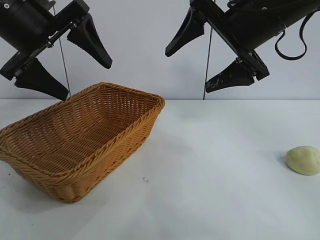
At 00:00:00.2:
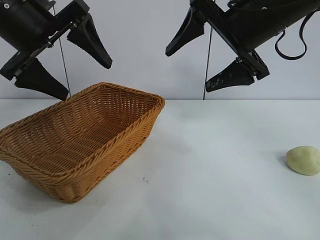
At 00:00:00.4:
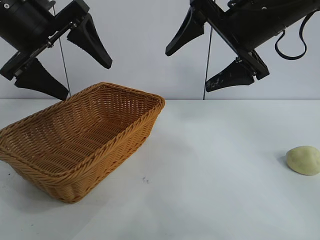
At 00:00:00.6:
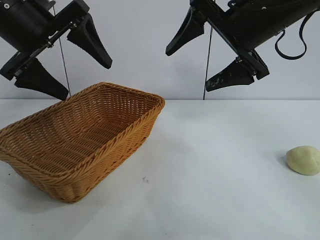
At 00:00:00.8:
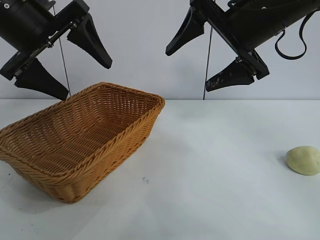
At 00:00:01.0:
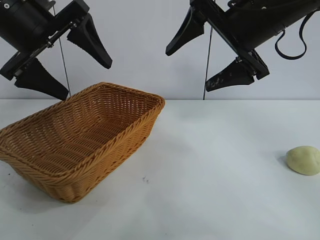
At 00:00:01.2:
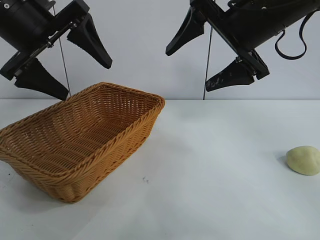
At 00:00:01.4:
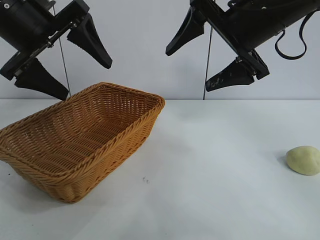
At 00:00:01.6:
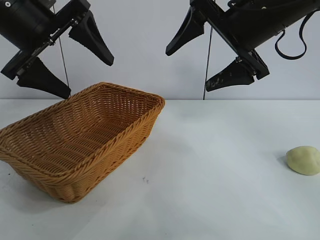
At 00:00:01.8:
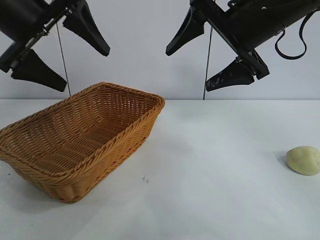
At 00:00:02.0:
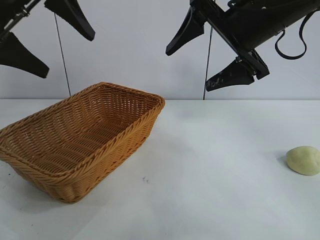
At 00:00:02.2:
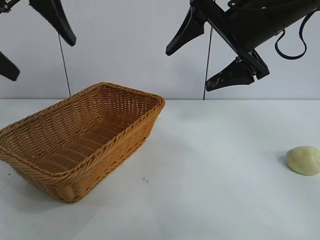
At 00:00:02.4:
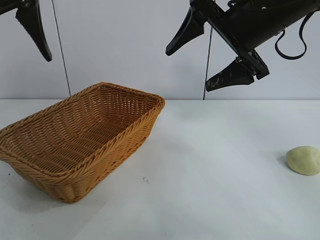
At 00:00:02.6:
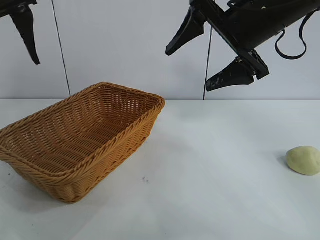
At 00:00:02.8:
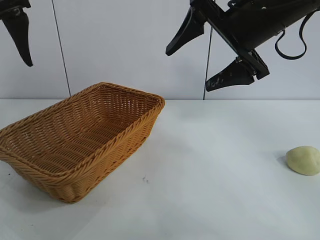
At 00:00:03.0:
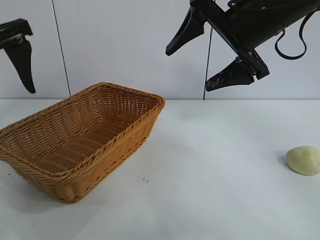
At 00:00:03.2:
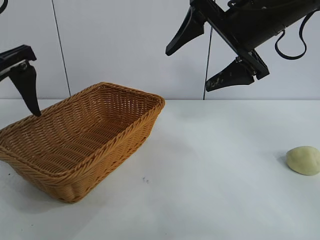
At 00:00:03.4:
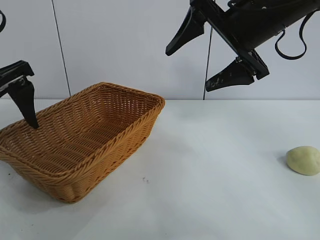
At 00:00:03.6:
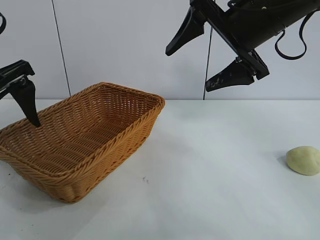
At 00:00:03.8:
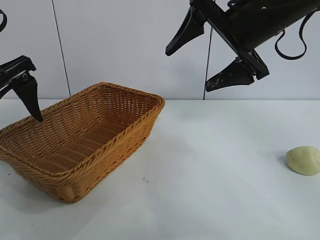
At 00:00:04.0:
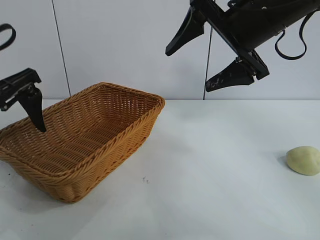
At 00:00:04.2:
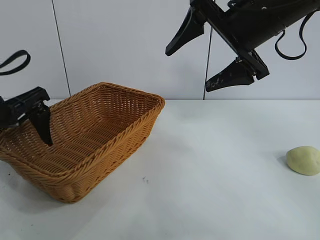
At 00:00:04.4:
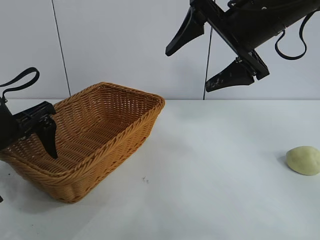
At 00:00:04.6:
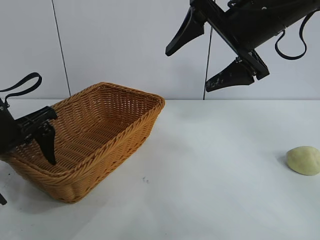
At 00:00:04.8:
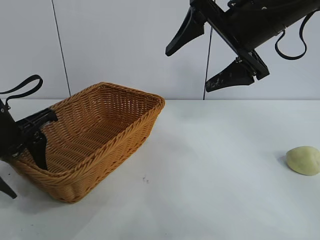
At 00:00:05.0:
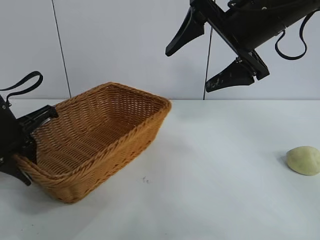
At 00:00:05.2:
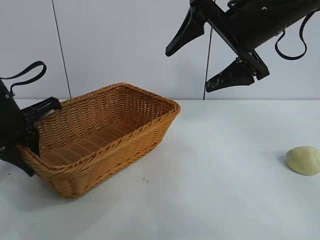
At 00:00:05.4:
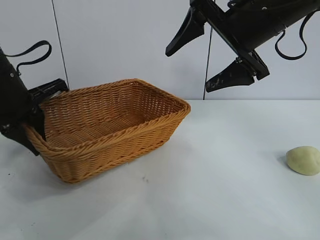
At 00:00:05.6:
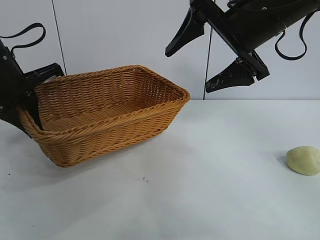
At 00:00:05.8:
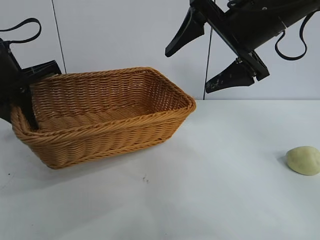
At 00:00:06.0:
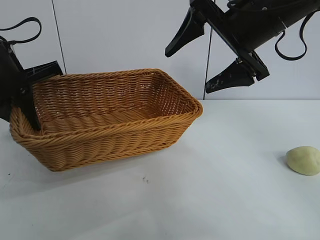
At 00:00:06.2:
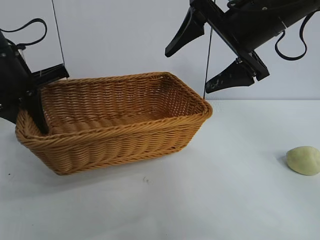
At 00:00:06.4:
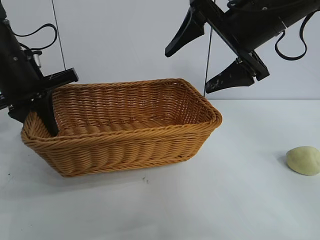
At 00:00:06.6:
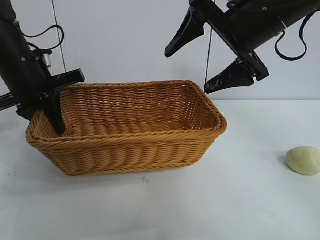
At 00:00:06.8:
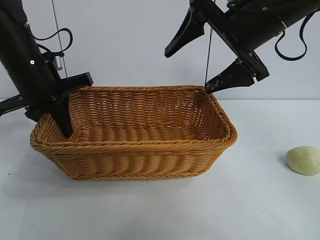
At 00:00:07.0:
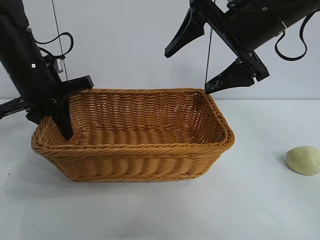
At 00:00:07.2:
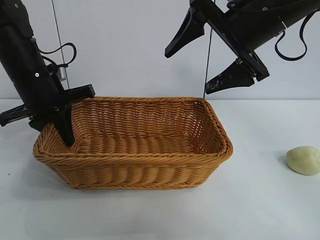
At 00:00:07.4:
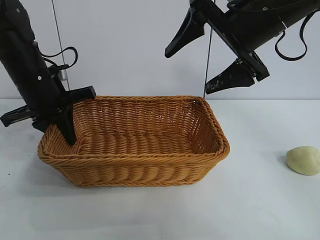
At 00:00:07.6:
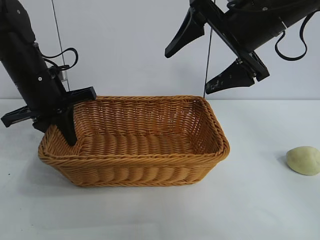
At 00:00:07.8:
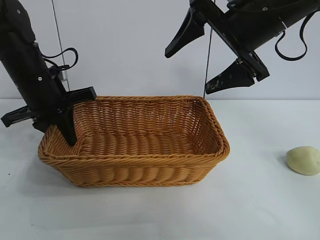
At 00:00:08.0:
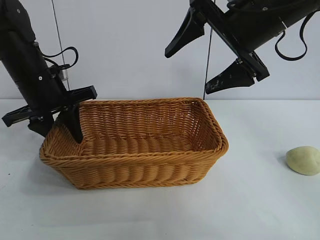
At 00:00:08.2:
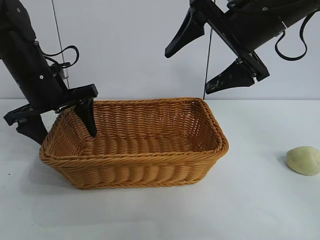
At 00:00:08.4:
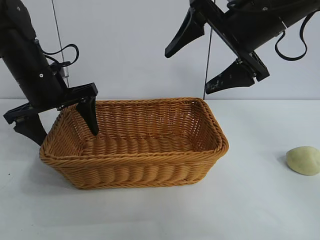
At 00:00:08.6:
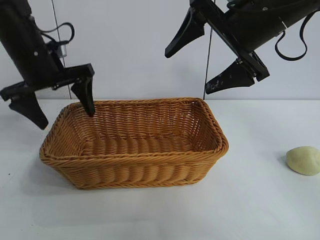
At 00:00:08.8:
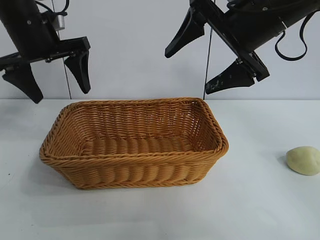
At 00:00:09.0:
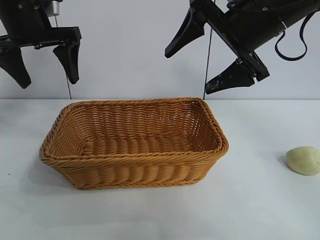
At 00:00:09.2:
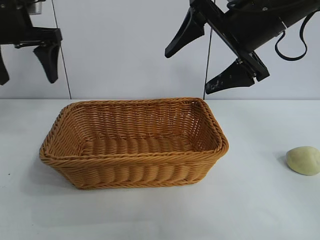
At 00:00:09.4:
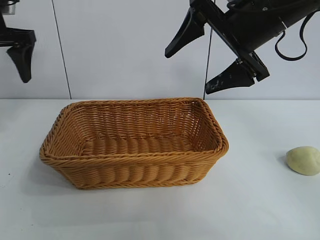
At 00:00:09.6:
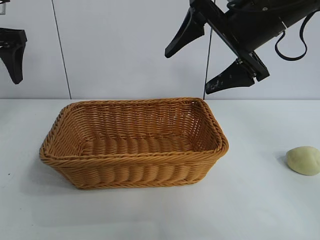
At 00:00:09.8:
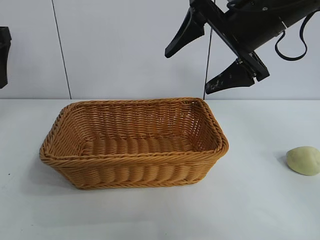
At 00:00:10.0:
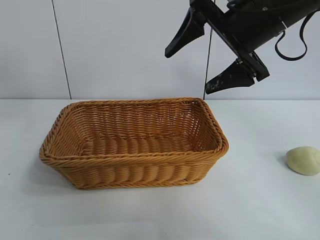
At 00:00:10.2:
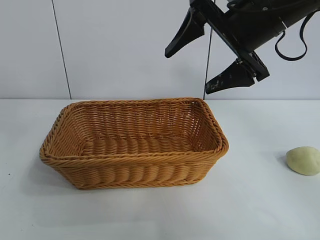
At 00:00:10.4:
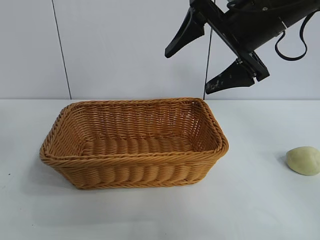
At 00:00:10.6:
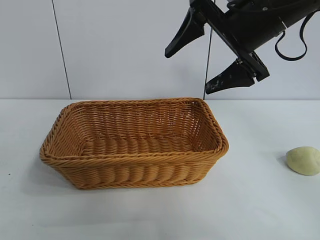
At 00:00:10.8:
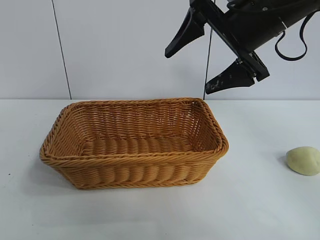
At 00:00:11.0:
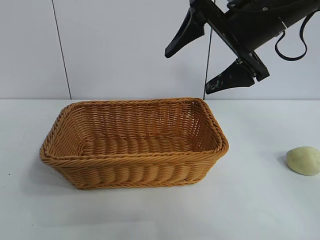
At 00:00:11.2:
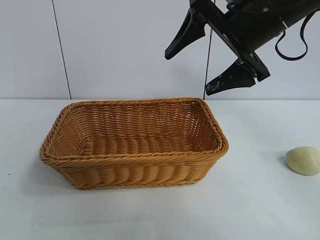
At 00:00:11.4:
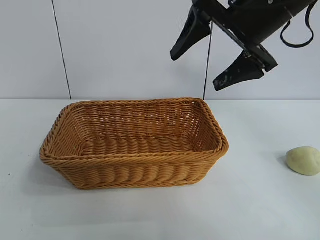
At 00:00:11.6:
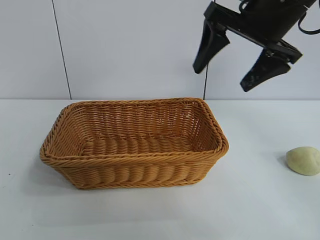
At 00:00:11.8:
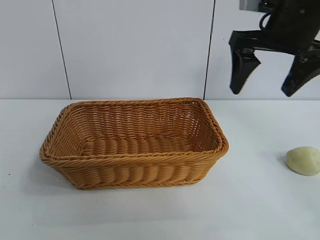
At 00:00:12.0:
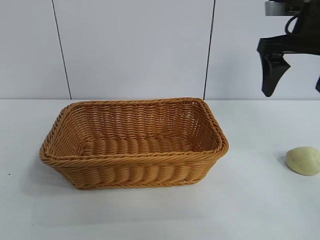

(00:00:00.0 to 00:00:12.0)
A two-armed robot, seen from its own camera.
Task of the whole recording: pick up the egg yolk pastry and put it into the basket.
Step, 00:00:00.0 - 00:00:05.0: Grasp the basket with left gripper.
Step, 00:00:05.2 - 00:00:08.4: Place the basket in the center of view with left gripper.

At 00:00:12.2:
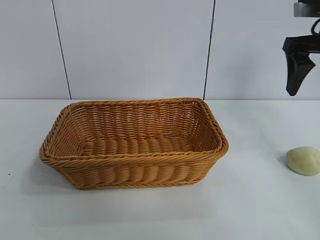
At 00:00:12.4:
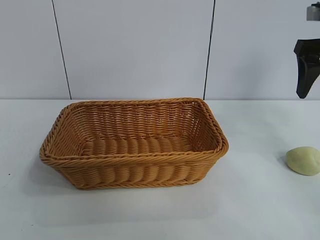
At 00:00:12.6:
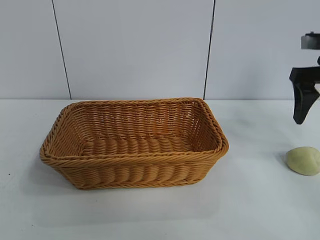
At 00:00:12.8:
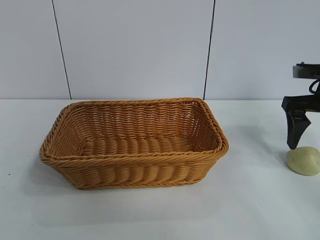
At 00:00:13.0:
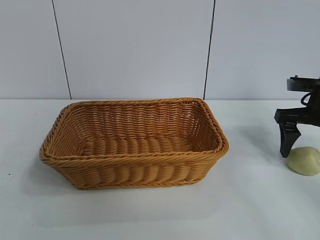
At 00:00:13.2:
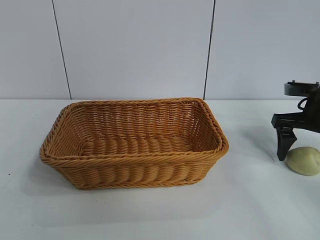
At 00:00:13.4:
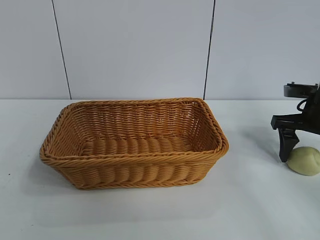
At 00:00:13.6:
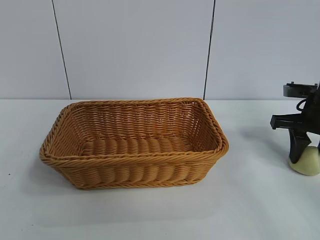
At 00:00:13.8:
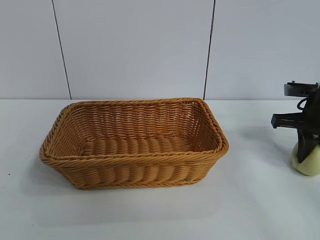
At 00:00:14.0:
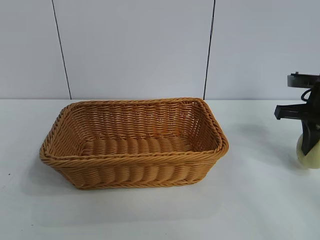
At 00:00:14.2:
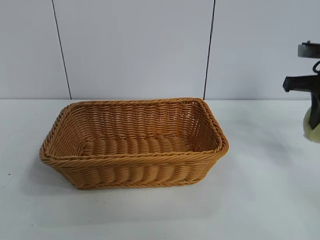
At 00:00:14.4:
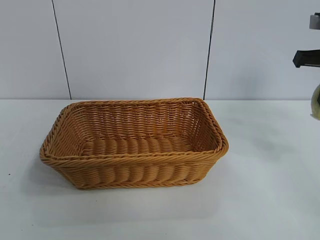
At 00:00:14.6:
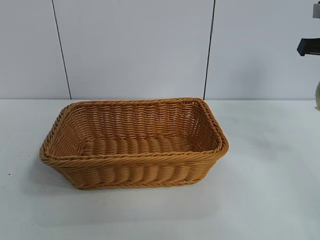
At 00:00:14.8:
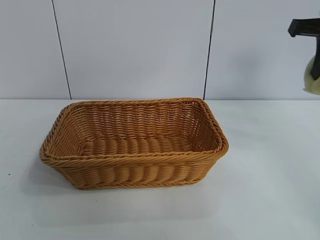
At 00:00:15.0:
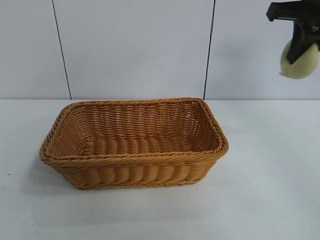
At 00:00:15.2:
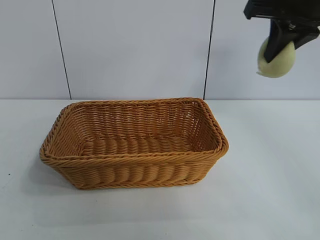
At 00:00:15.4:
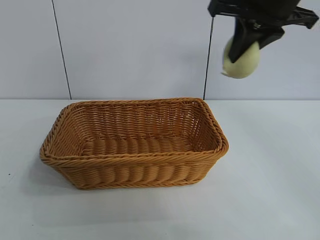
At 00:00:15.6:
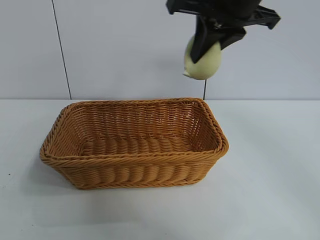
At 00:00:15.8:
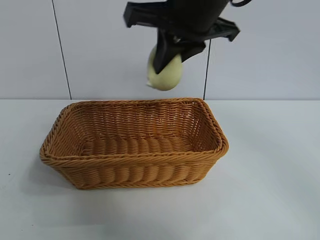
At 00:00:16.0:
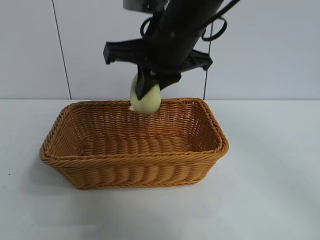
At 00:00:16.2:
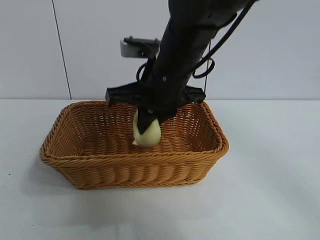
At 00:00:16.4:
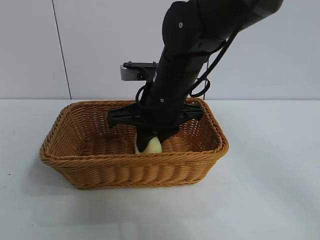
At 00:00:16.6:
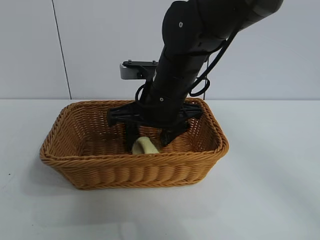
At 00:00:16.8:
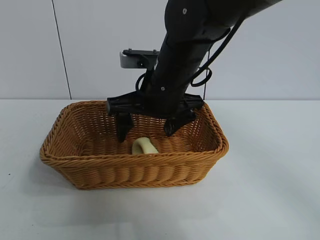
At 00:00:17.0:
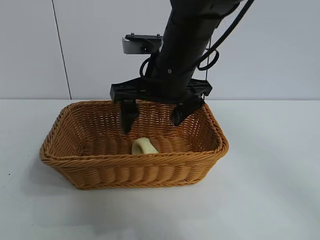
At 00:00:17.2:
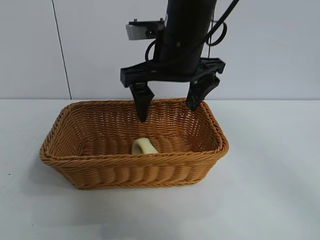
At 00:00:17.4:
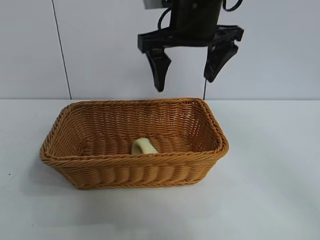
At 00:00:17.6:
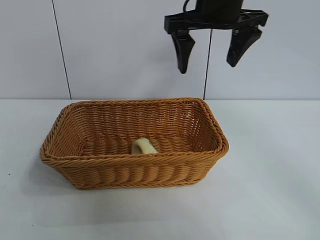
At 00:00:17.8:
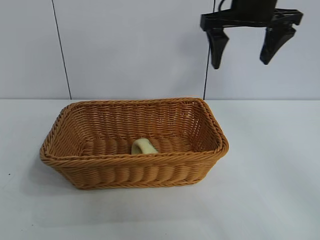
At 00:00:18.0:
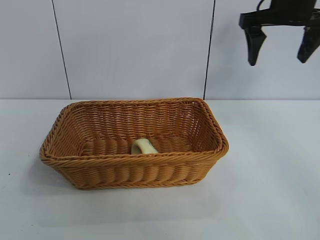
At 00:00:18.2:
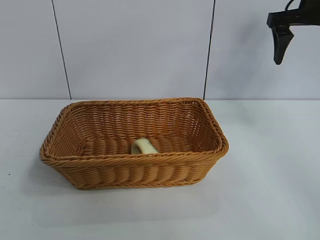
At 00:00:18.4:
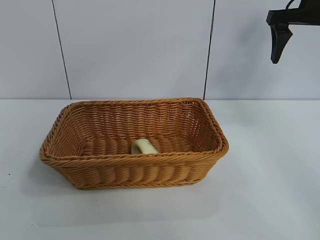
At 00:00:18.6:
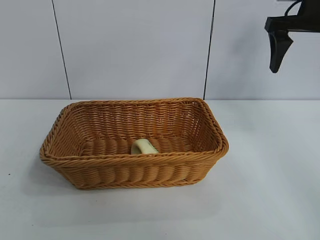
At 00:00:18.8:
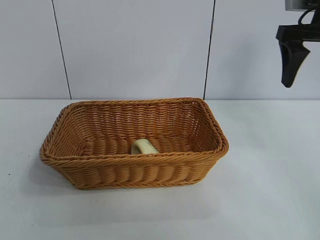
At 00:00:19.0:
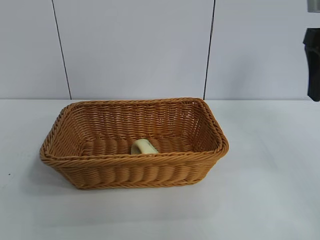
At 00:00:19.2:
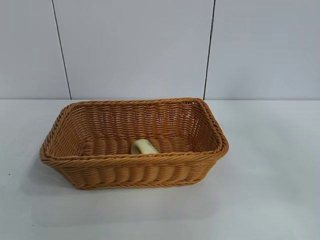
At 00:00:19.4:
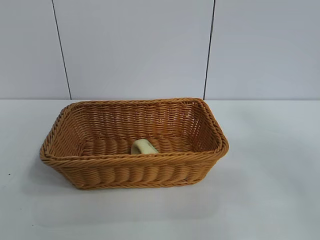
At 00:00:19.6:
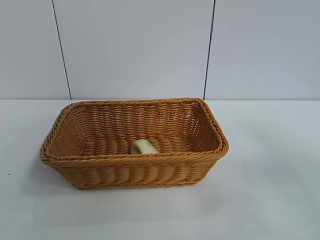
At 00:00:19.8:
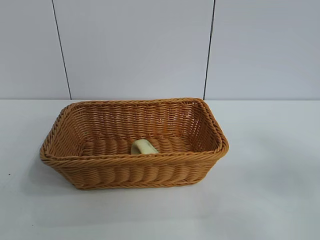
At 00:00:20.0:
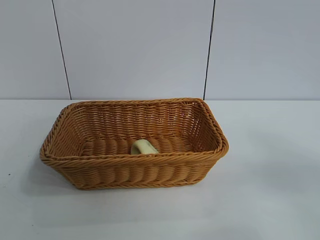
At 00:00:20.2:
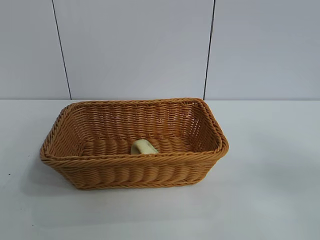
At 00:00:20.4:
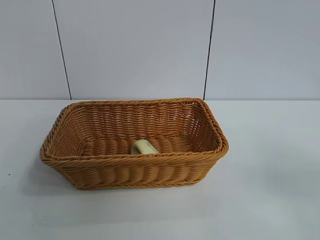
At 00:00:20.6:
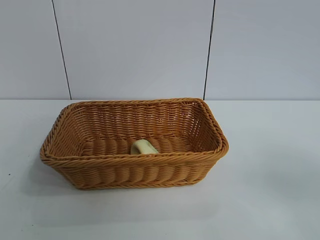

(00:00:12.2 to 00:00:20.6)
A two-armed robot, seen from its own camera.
Task of the whole recording: pick up the egg yolk pastry and put it into the basket.
Step, 00:00:14.0 - 00:00:16.8: Place the egg yolk pastry in the basket with right gripper.
